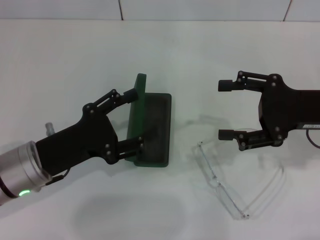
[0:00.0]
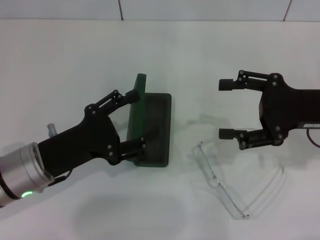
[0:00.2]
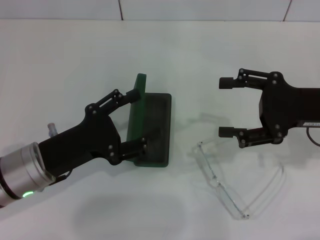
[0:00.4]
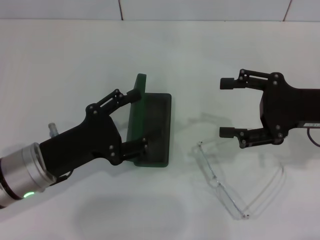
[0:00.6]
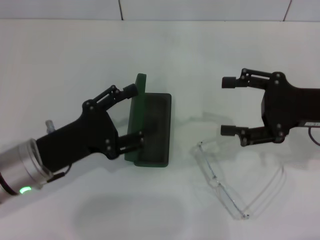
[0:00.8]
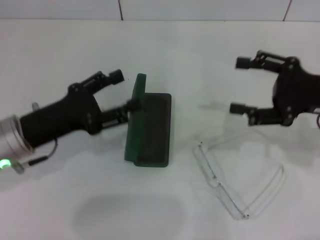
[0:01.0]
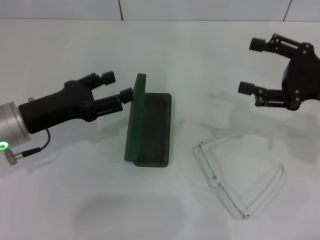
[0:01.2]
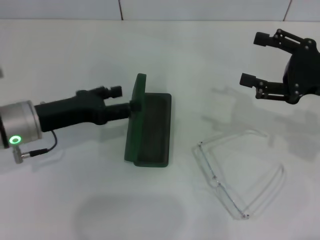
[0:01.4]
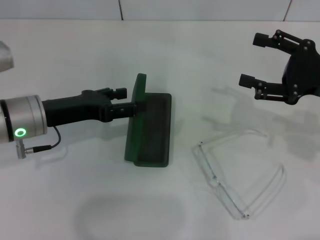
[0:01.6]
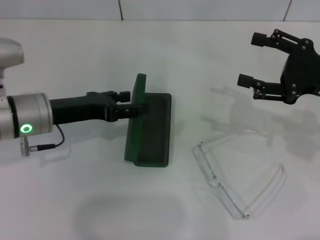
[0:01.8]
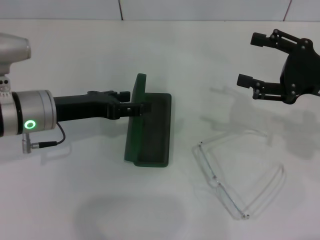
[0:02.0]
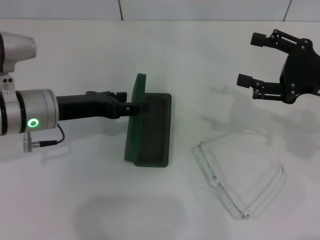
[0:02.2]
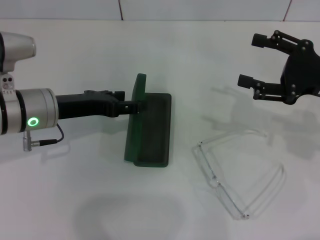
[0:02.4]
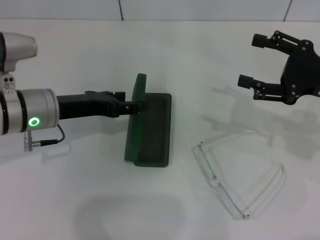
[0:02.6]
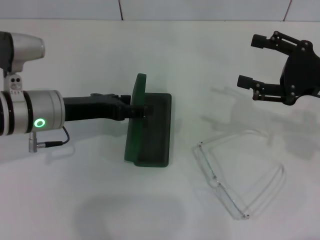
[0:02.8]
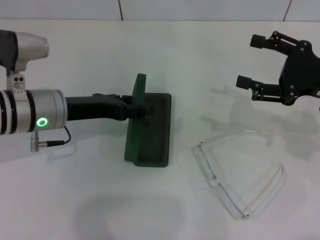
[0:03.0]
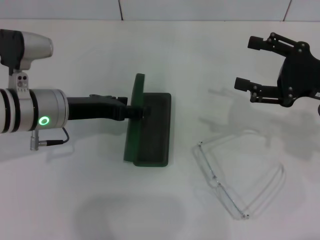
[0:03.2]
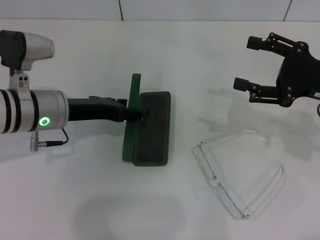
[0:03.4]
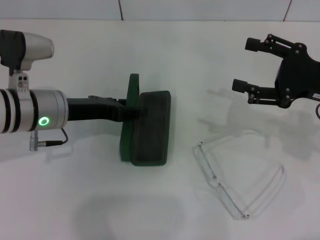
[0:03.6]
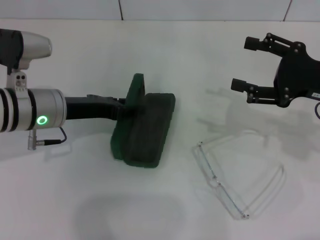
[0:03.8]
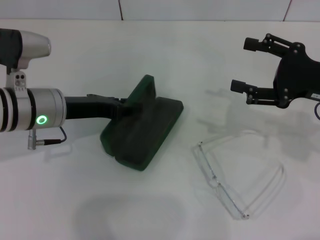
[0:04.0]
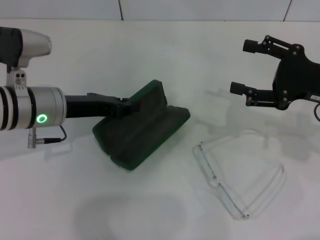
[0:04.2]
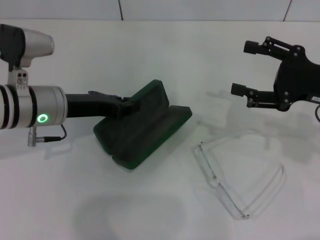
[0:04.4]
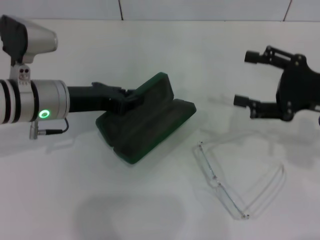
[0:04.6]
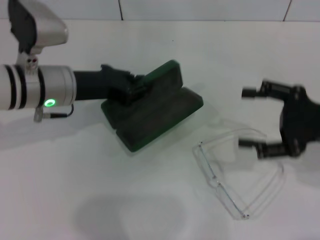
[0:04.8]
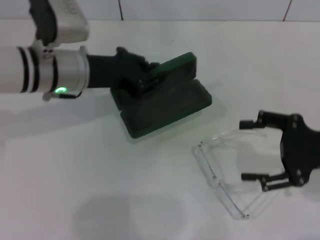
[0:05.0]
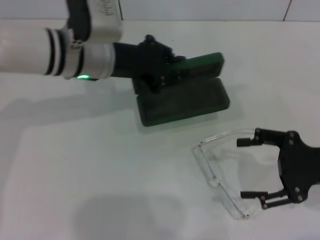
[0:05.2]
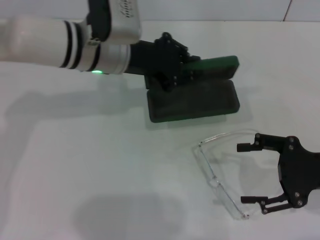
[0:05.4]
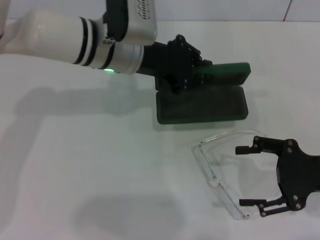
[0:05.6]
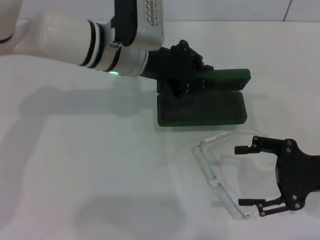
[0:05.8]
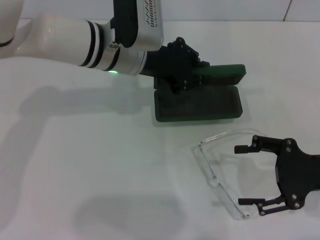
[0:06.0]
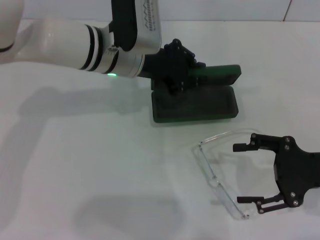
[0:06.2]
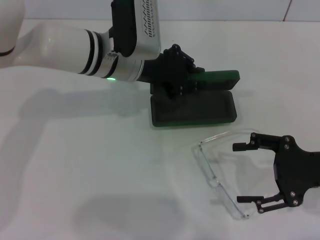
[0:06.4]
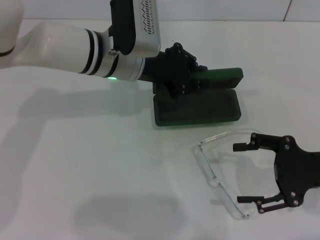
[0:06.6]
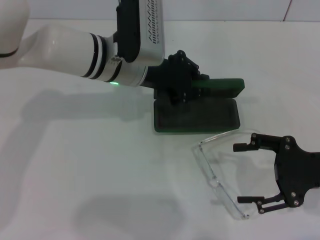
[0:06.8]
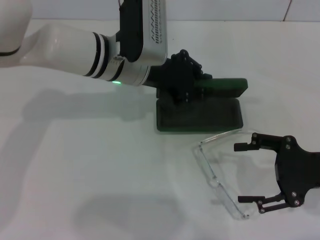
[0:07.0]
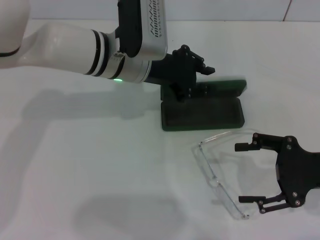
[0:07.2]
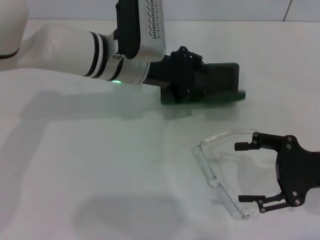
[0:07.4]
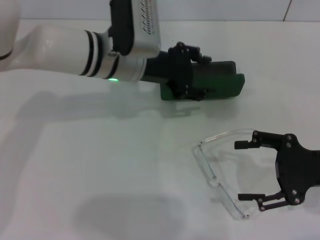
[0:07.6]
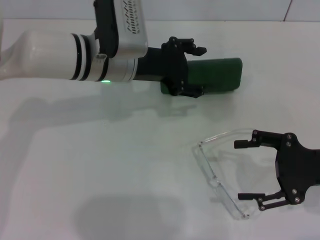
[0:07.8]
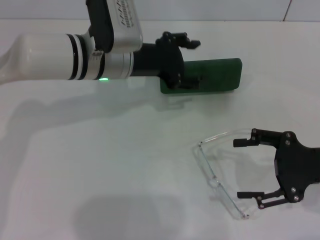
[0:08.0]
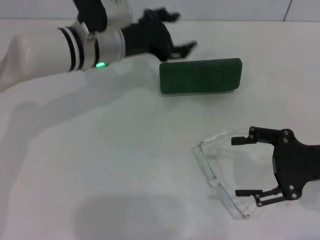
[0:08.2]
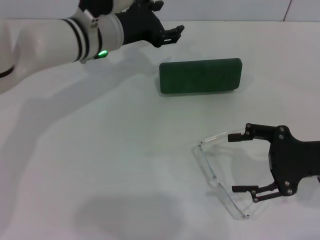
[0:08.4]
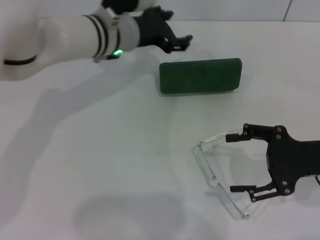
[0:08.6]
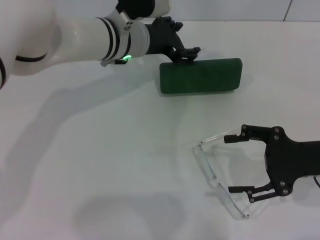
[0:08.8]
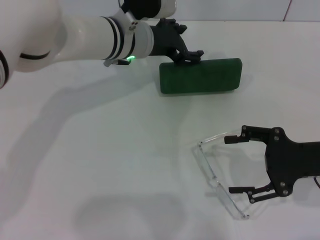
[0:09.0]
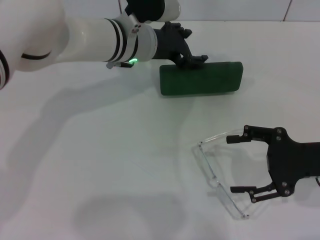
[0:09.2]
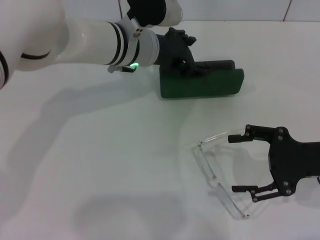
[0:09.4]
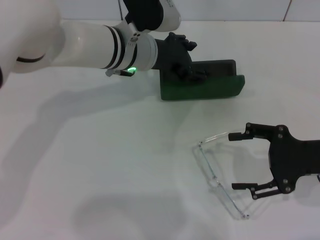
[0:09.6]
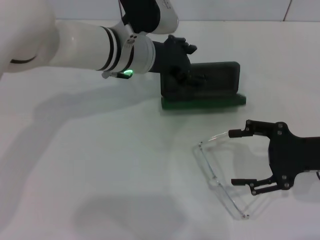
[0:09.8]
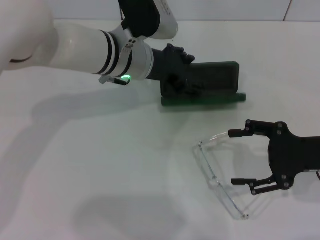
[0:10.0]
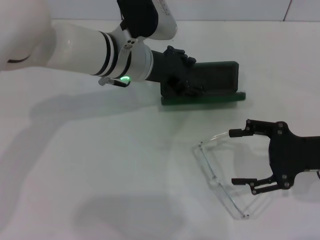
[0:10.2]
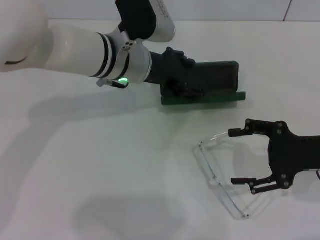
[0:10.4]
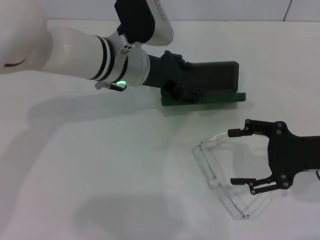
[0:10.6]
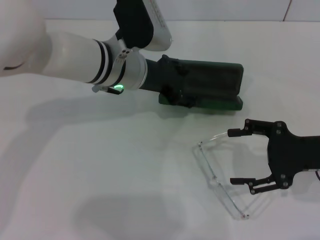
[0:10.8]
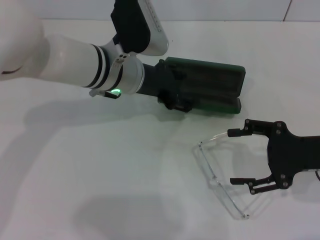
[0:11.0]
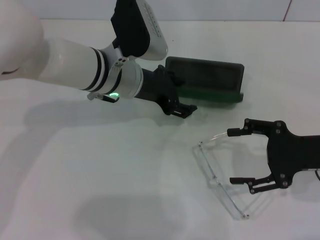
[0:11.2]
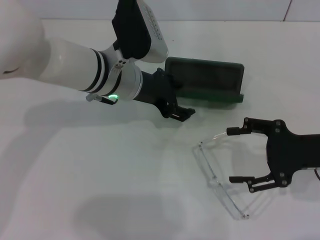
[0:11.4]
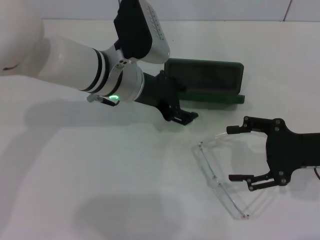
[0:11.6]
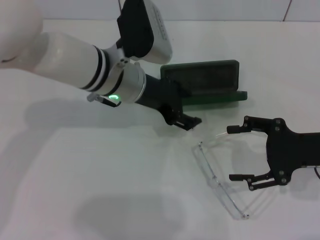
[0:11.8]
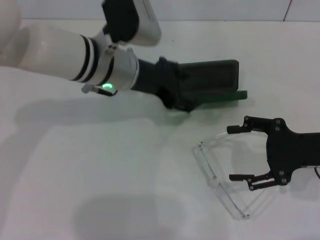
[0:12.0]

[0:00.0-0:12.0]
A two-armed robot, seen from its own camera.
Step, 0:00.0 to 0:04.2: Grab the glasses case with your left hand.
Step, 0:04.4 to 0:07.6: Place the glasses case in the center of the table with your left hand.
0:00.0 to 0:01.6: The left gripper moves forward, some 5 cm.
0:01.6 to 0:03.0: The grippers make only small movements.
0:03.0 to 0:04.4: The left gripper closes up.
0:04.4 to 0:06.0: The right gripper travels backward by roughly 5 cm. Meanwhile the left gripper moves to the right and forward, approximately 15 cm.
0:06.0 to 0:07.6: The left gripper opens its fingers.
0:07.6 to 0:09.0: The left gripper opens.
0:09.0 to 0:10.4: The grippers stay close to where they were, moving slightly.
0:10.4 to 0:12.0: The grippers stay close to where they were, moving slightly.

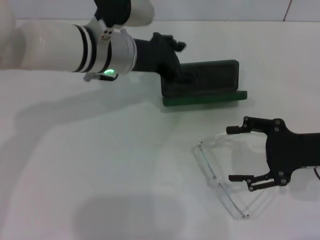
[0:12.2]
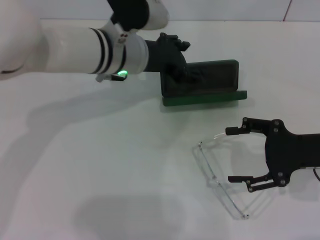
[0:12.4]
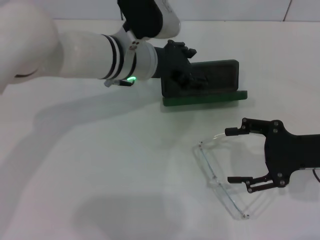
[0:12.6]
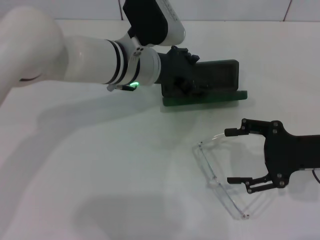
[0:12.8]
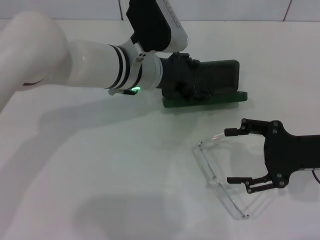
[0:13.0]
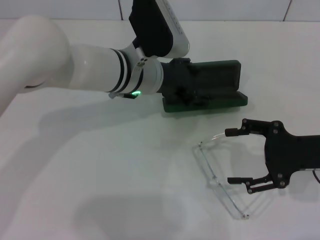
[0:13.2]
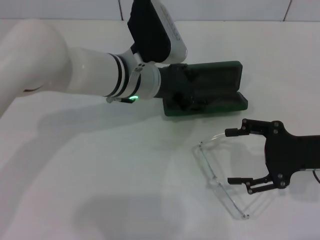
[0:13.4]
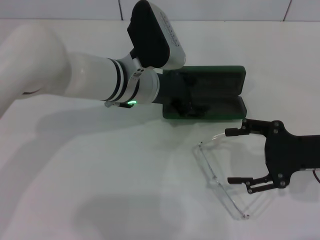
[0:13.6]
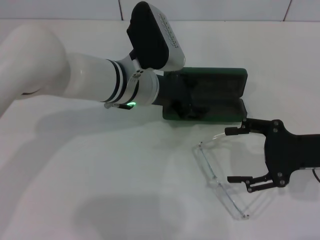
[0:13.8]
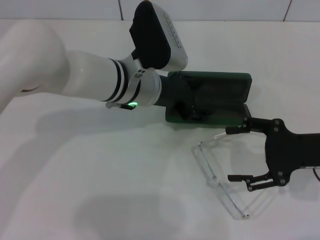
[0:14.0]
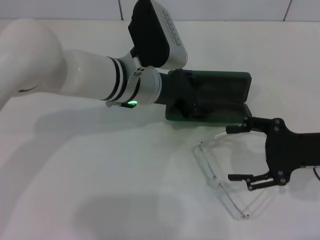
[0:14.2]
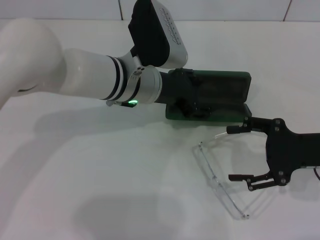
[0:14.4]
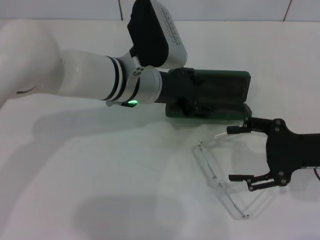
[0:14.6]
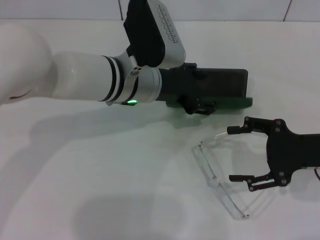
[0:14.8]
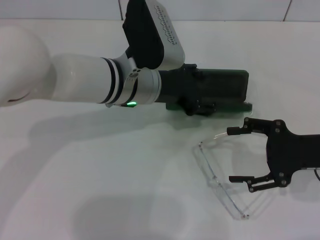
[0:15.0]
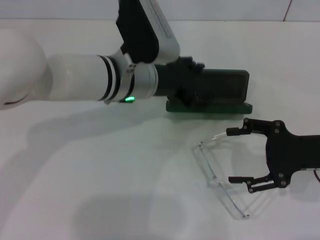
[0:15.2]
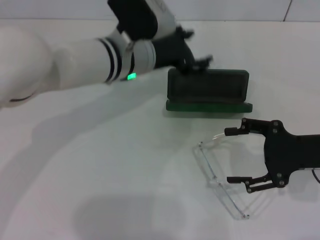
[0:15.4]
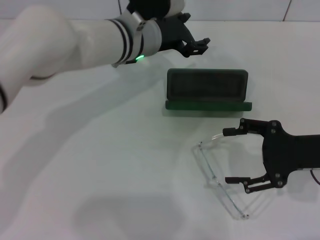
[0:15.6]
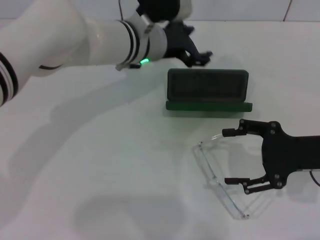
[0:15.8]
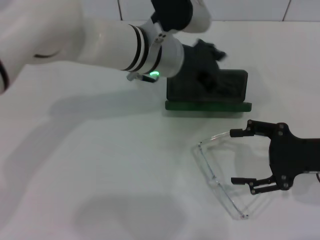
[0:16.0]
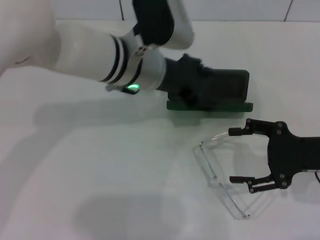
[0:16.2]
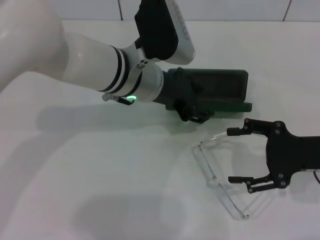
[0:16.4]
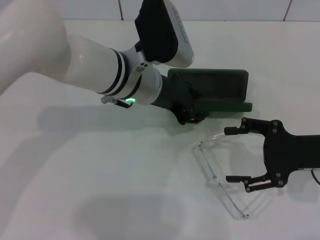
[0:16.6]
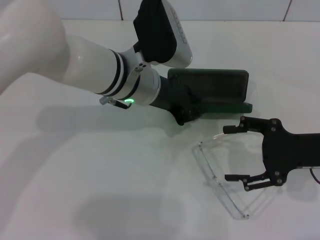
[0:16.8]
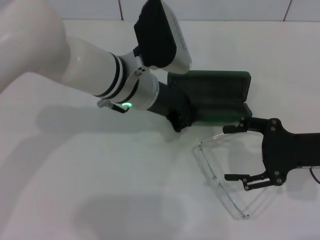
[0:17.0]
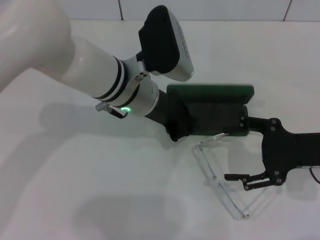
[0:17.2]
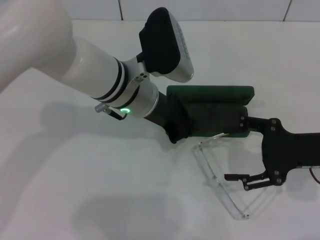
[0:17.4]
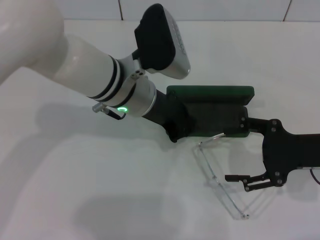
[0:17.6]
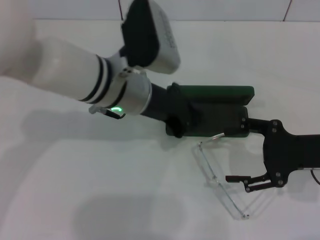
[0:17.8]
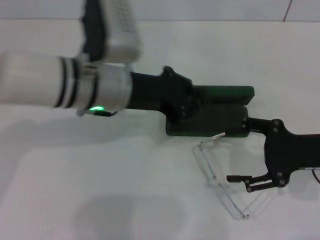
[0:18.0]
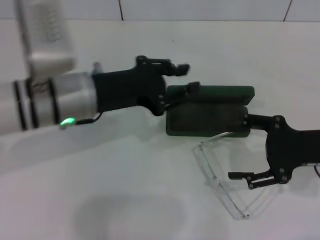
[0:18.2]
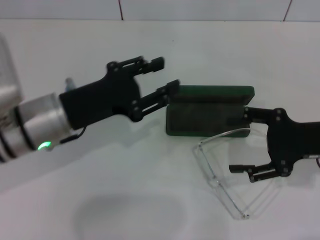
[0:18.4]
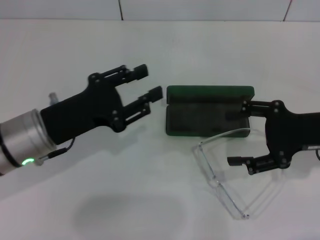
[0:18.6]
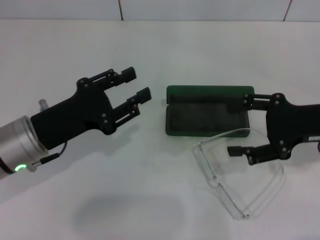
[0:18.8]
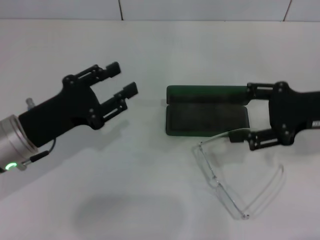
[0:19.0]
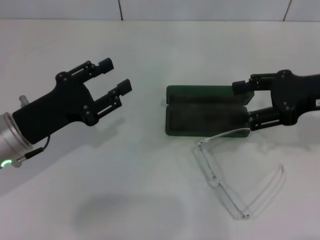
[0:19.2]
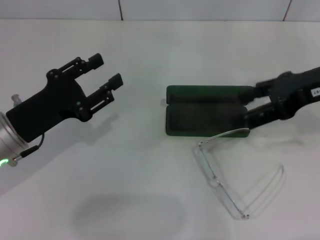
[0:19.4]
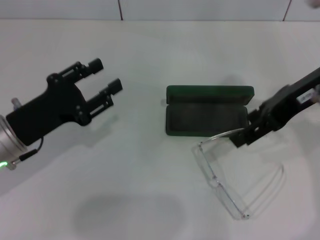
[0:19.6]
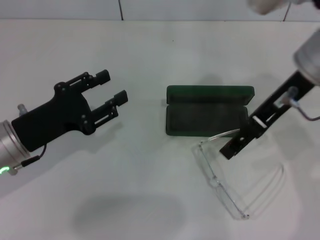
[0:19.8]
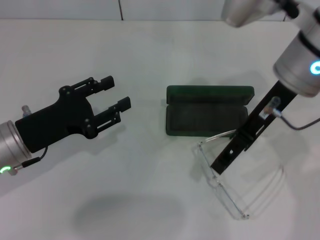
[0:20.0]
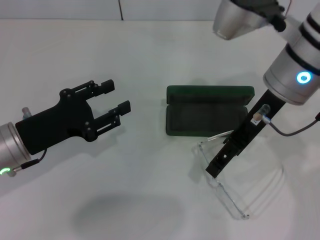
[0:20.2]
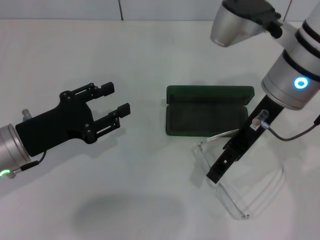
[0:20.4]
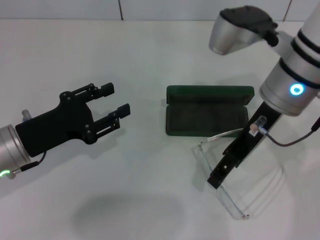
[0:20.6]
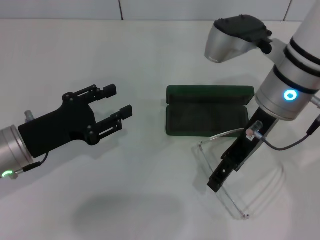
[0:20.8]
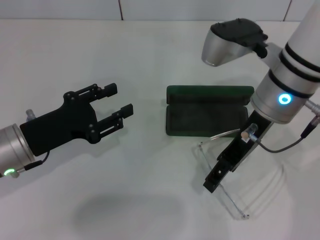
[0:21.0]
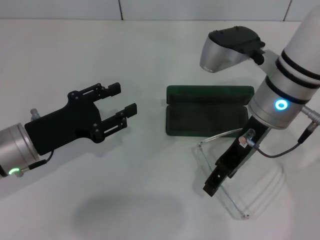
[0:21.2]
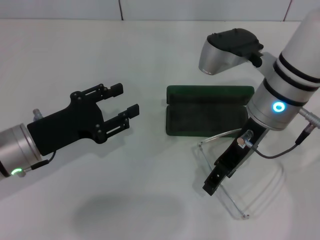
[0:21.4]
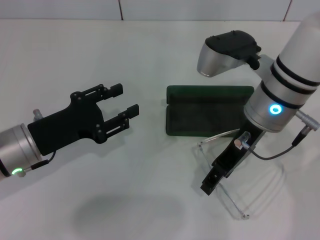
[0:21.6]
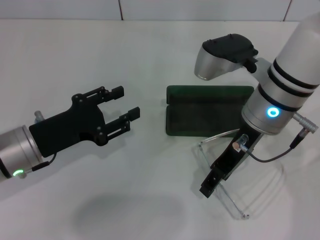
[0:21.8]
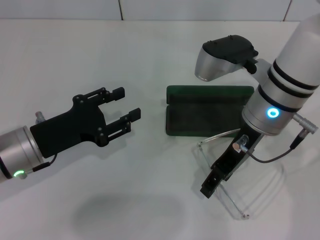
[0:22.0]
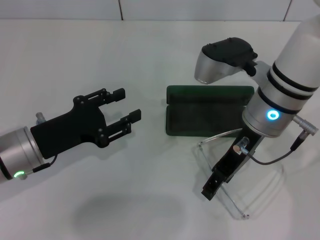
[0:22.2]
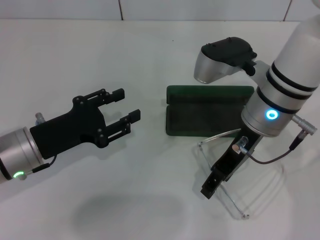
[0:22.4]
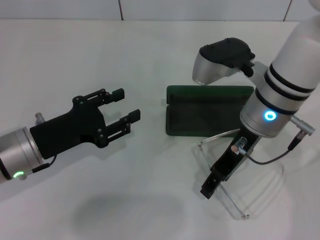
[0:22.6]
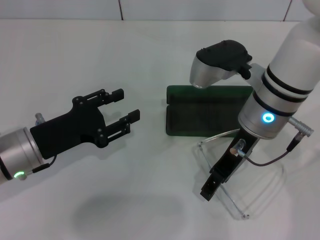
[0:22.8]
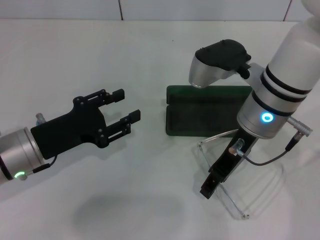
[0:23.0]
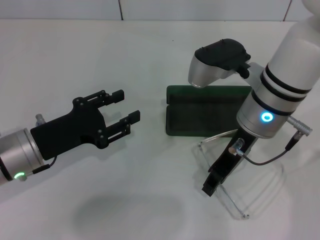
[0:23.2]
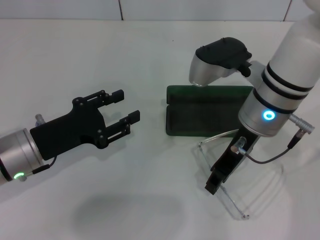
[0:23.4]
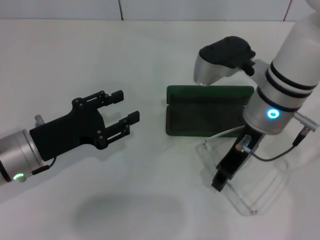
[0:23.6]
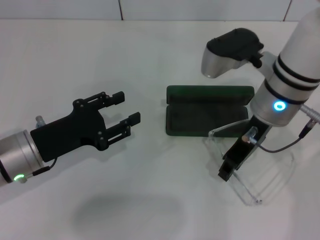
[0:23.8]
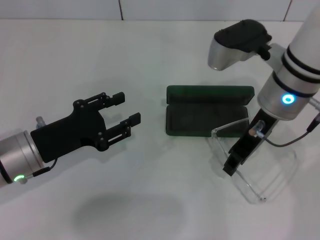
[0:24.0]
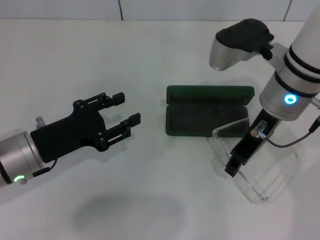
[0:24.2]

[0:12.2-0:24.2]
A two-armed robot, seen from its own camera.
0:12.2 to 0:13.8: The left gripper moves about 5 cm.
0:13.8 to 0:15.2: The grippers stay close to where they were, moving slightly.
0:16.6 to 0:18.2: The left gripper goes about 10 cm to the left and backward, and closes its fingers.
0:18.2 to 0:19.8: The right gripper shifts approximately 20 cm upward and to the left; the left gripper moves to the left and downward, about 10 cm, and opens up.
0:19.8 to 0:21.2: The right gripper heads downward, covering some 5 cm.
0:21.2 to 0:22.6: The grippers make only small movements.
0:22.6 to 0:24.2: The right gripper closes.
